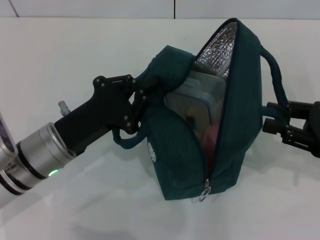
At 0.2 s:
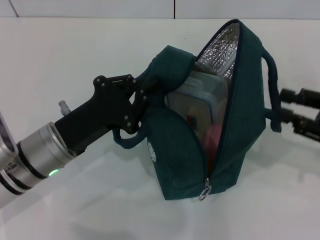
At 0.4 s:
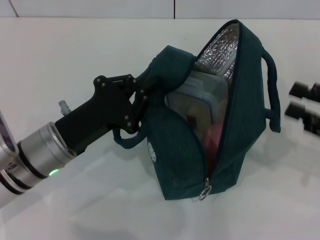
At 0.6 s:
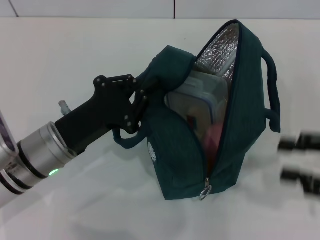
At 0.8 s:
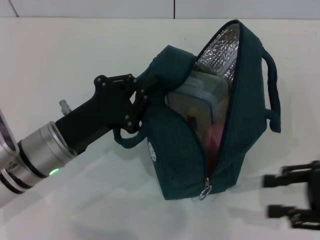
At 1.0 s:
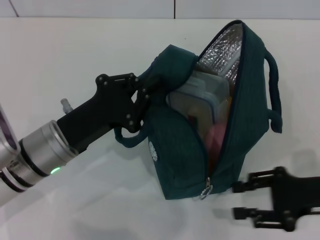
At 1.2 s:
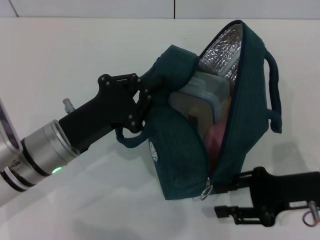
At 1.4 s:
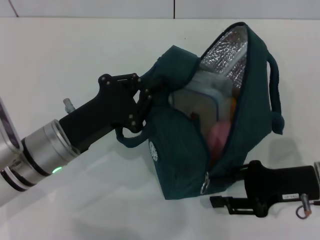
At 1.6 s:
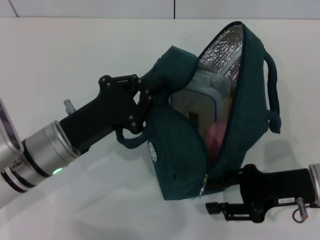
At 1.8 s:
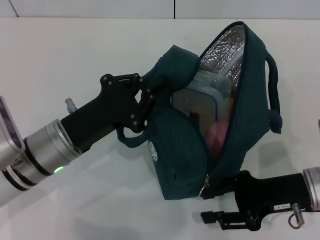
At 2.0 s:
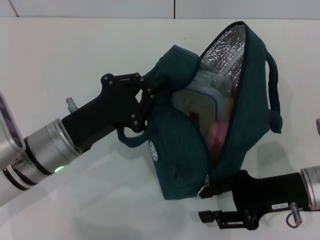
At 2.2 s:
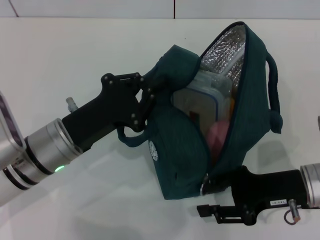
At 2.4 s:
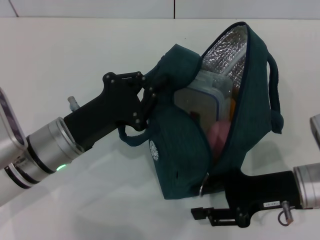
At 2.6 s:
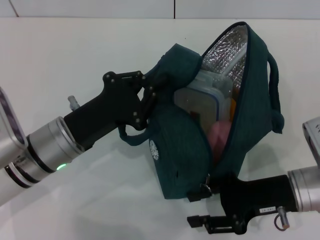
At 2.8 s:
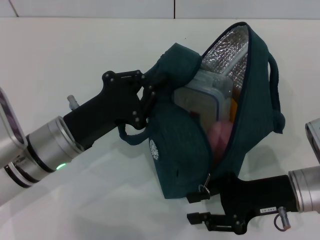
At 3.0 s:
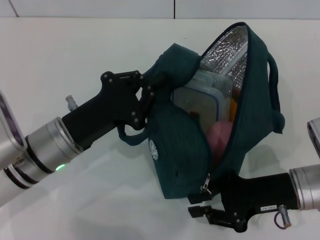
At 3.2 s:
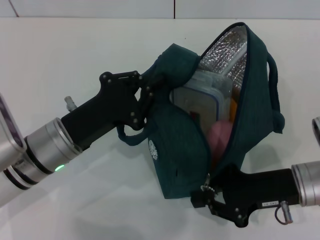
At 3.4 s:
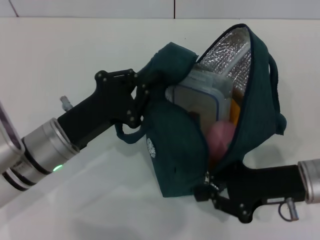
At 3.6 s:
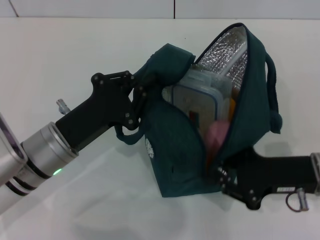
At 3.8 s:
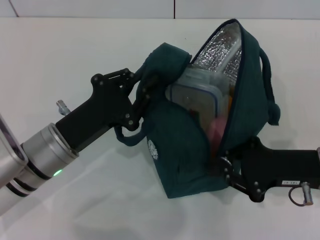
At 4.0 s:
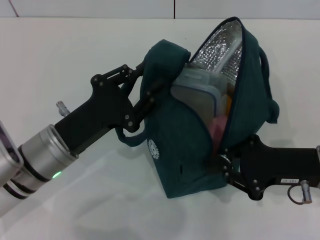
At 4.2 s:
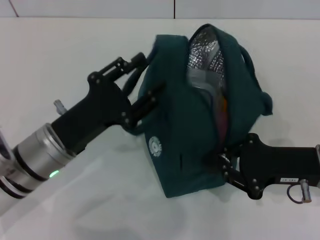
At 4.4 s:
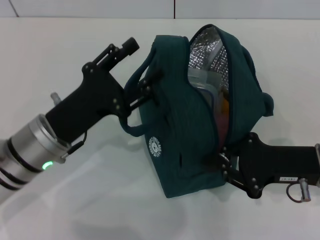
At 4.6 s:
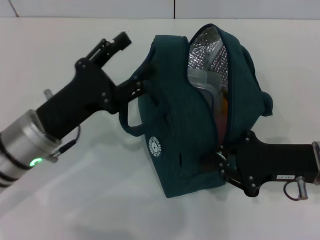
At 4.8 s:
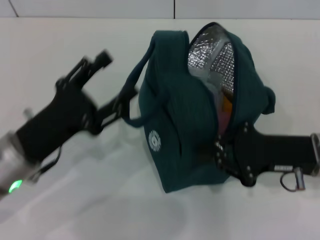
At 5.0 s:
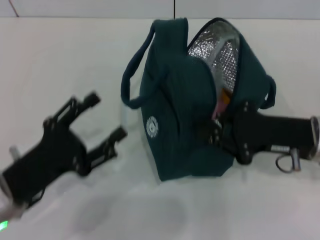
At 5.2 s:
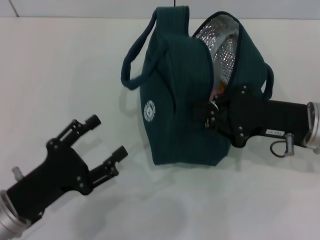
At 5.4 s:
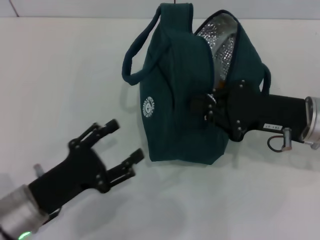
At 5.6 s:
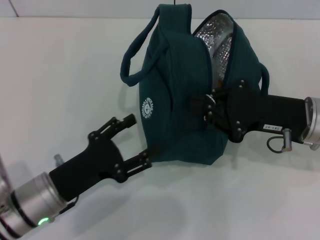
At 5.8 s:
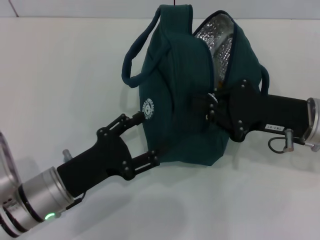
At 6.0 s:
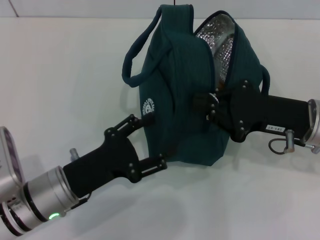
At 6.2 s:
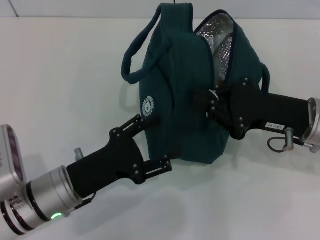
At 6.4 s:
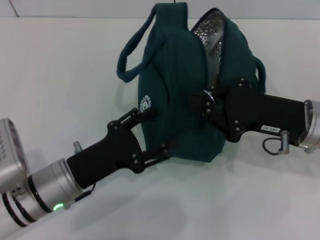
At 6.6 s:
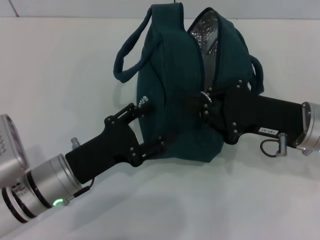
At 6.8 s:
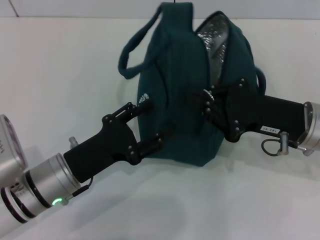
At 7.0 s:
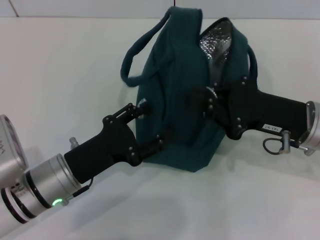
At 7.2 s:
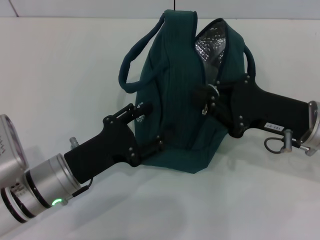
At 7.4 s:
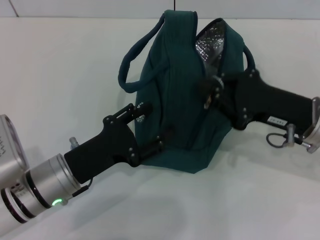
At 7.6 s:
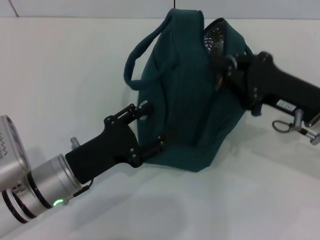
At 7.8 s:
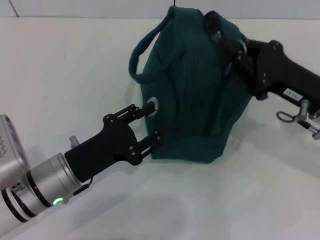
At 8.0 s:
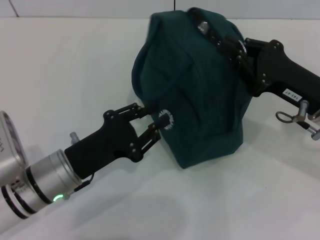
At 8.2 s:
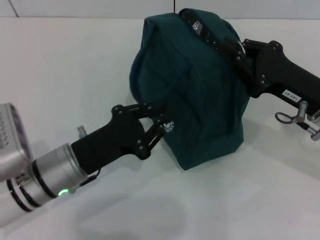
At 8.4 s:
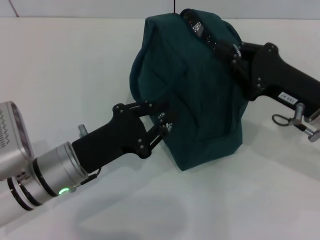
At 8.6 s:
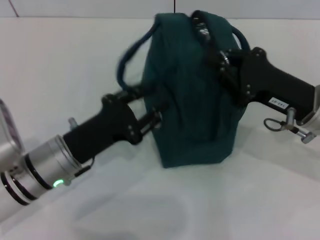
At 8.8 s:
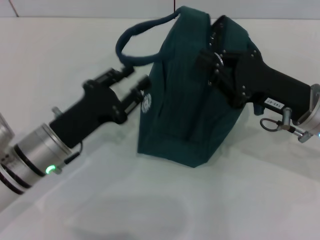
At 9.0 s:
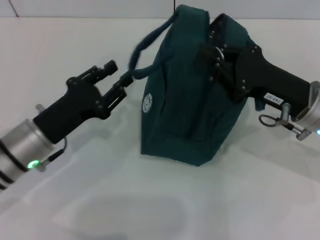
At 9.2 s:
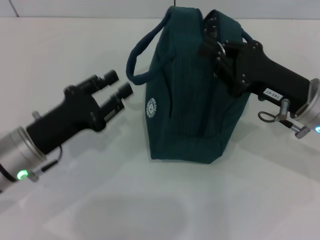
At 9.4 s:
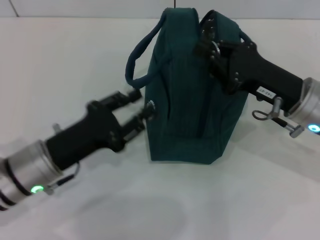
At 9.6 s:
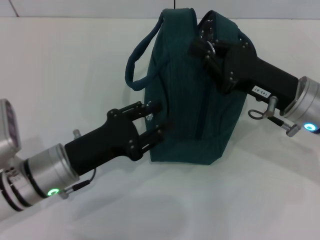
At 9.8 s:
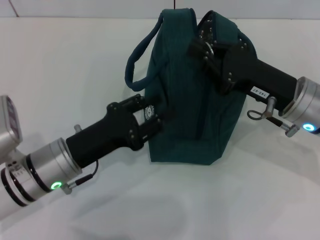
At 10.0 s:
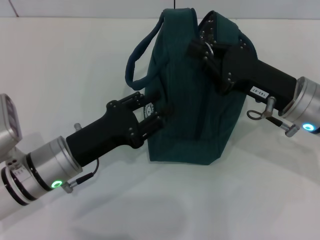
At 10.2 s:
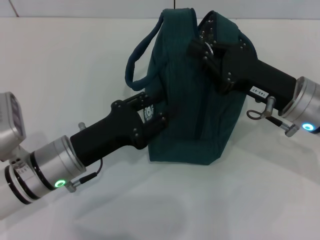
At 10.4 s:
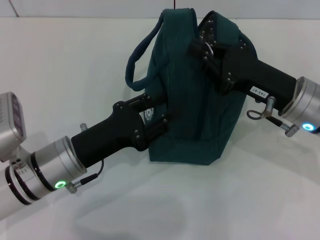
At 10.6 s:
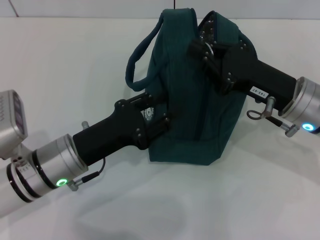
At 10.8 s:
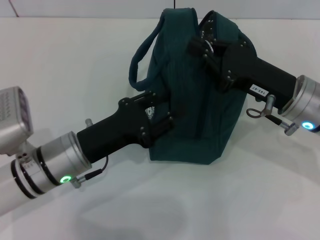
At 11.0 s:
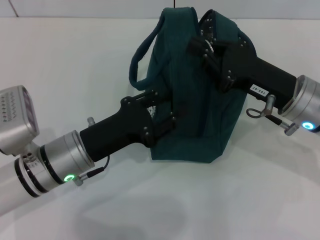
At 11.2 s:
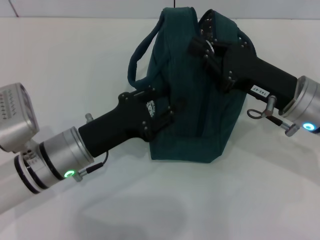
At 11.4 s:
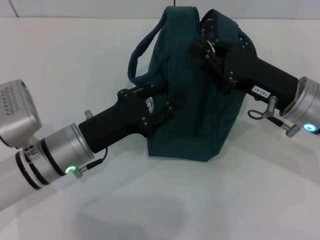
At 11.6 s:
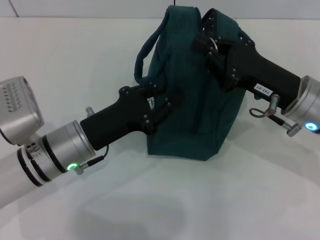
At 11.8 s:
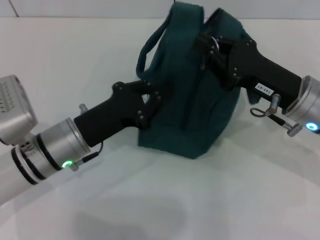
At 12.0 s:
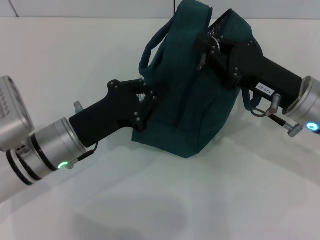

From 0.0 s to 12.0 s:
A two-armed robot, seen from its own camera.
From 0.0 s to 1.6 s: The right gripper is displaced to the left and downward by about 10 cm.
From 1.6 s to 3.0 s: The grippers make only small movements.
From 3.0 s to 4.4 s: The right gripper closes up. Meanwhile the left gripper opens.
From 7.6 s to 9.0 s: The left gripper changes place by about 5 cm.
From 10.4 s to 12.0 s: The left gripper closes its fingers.

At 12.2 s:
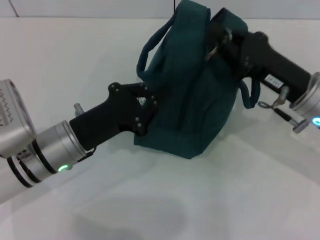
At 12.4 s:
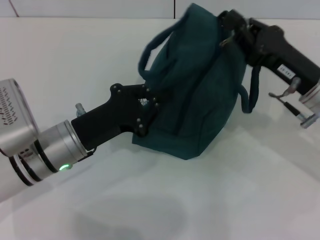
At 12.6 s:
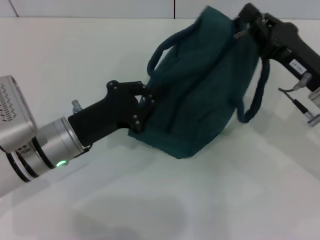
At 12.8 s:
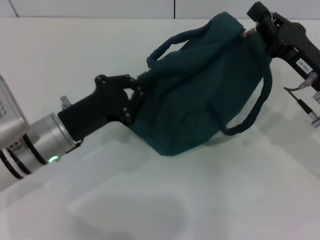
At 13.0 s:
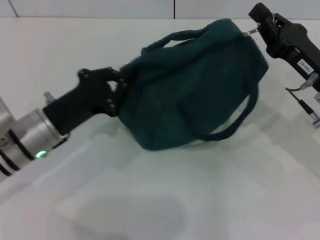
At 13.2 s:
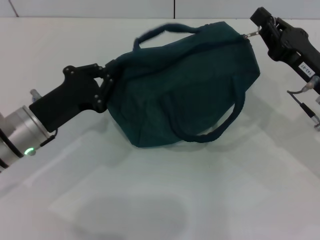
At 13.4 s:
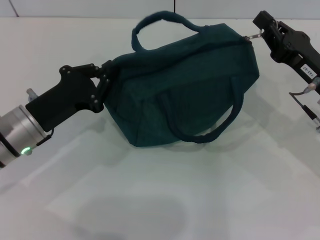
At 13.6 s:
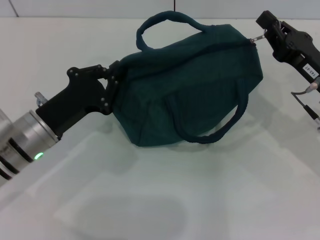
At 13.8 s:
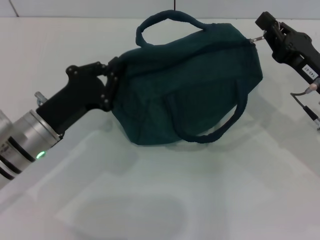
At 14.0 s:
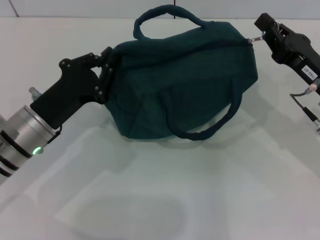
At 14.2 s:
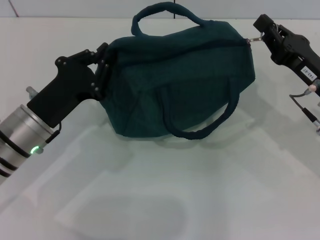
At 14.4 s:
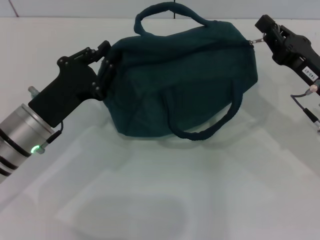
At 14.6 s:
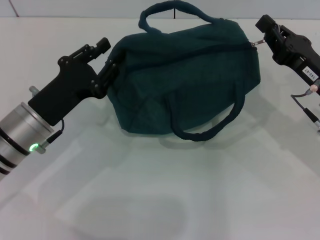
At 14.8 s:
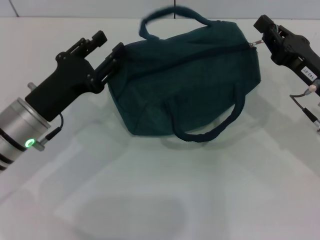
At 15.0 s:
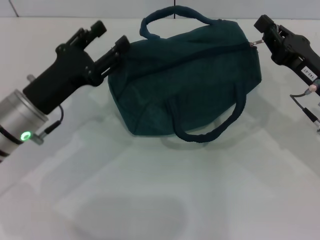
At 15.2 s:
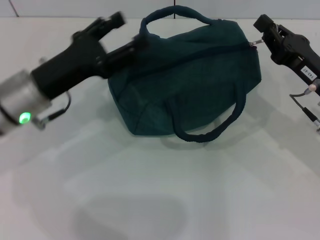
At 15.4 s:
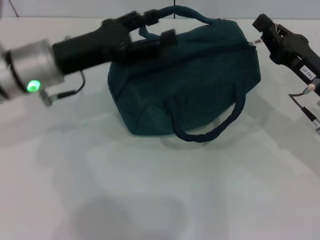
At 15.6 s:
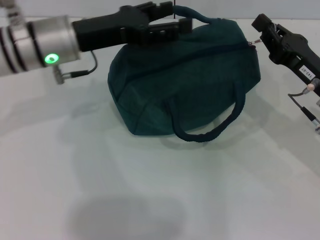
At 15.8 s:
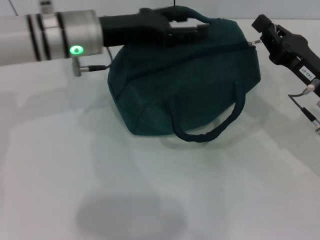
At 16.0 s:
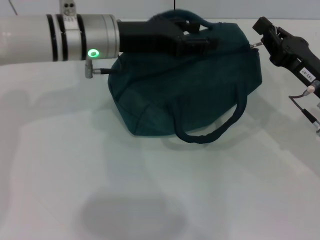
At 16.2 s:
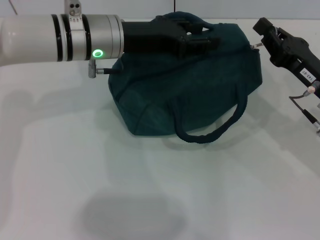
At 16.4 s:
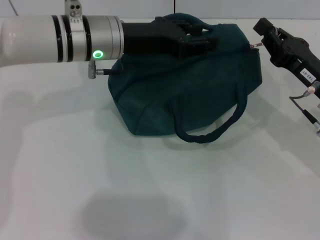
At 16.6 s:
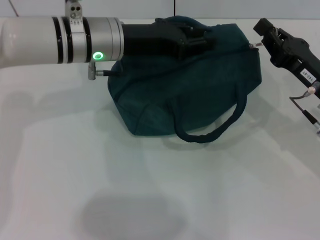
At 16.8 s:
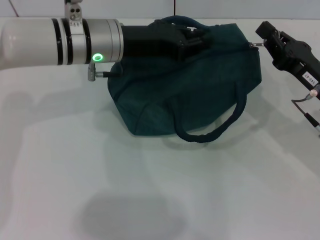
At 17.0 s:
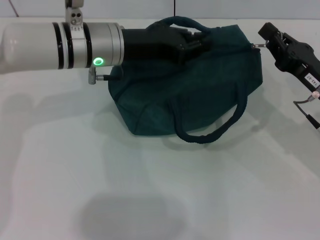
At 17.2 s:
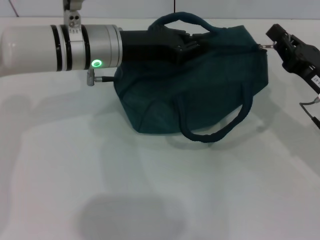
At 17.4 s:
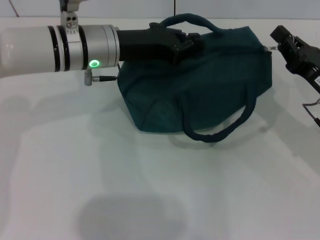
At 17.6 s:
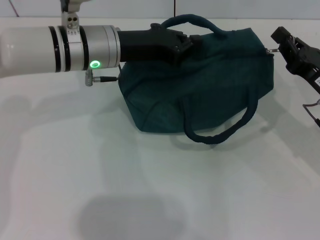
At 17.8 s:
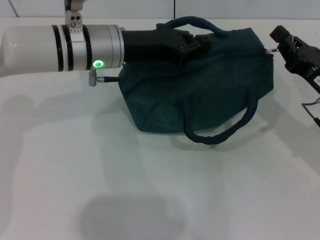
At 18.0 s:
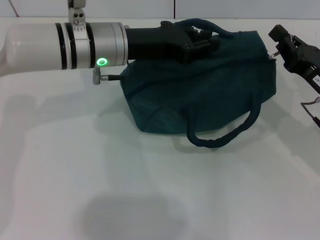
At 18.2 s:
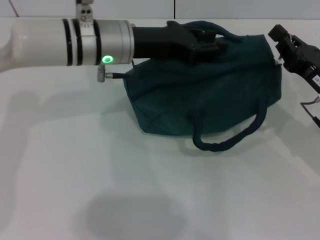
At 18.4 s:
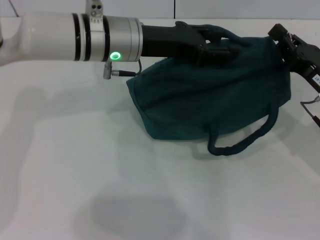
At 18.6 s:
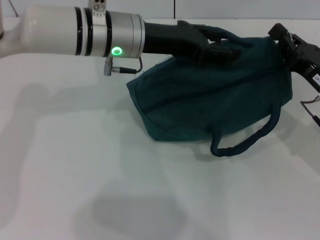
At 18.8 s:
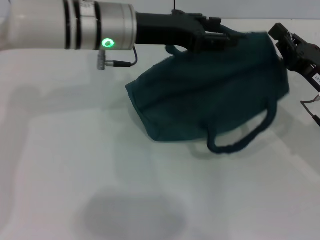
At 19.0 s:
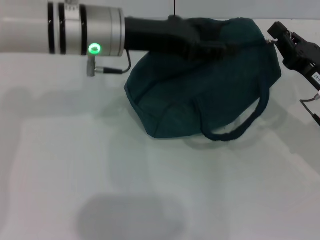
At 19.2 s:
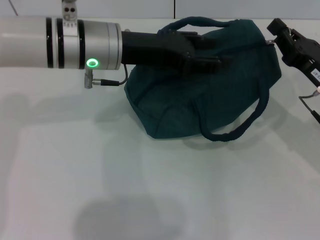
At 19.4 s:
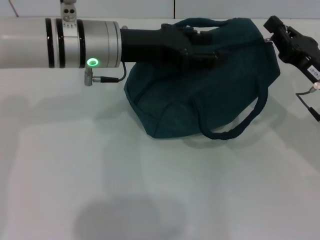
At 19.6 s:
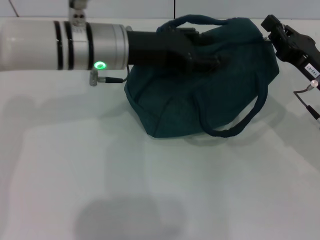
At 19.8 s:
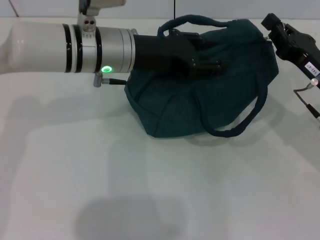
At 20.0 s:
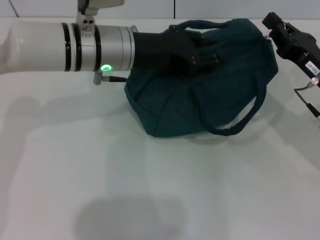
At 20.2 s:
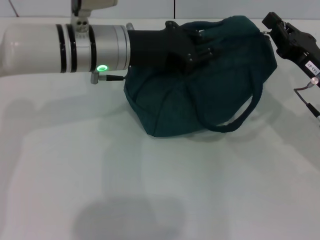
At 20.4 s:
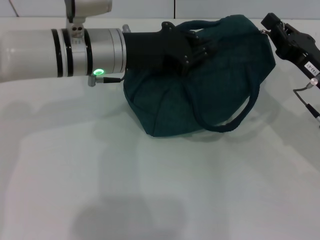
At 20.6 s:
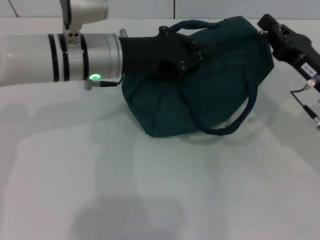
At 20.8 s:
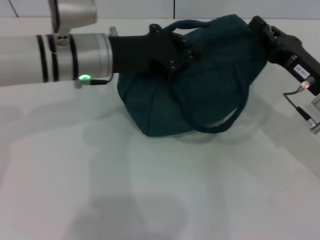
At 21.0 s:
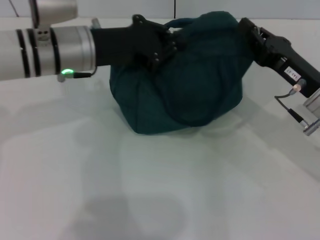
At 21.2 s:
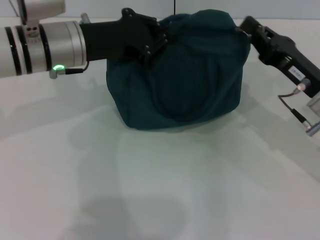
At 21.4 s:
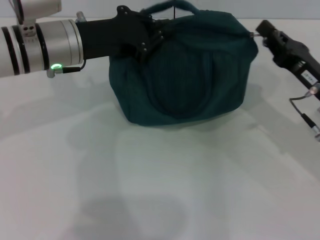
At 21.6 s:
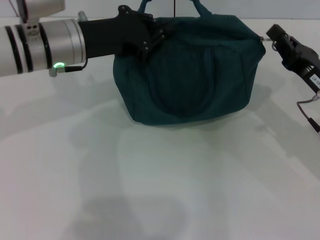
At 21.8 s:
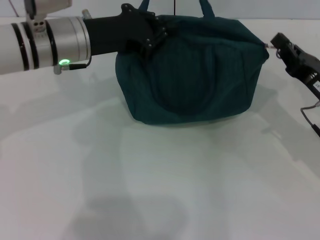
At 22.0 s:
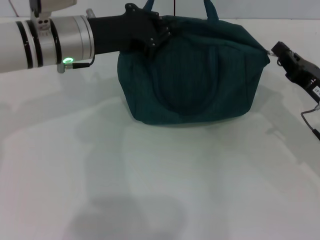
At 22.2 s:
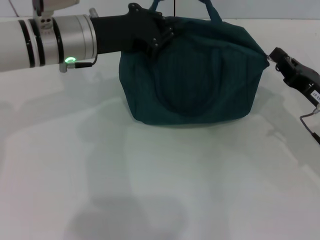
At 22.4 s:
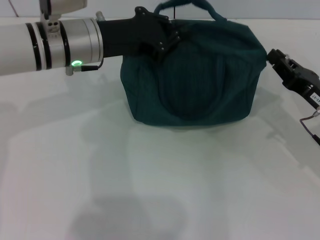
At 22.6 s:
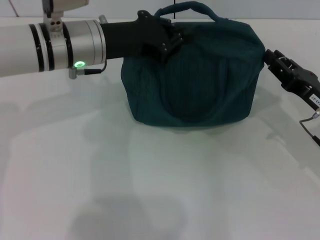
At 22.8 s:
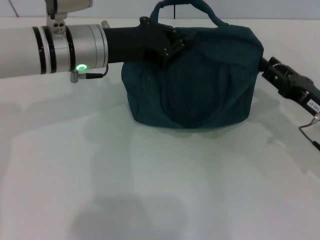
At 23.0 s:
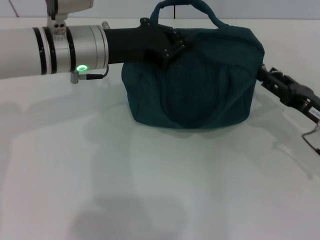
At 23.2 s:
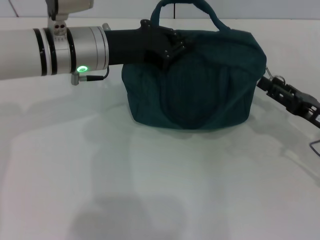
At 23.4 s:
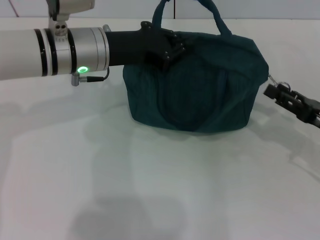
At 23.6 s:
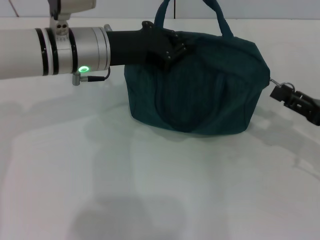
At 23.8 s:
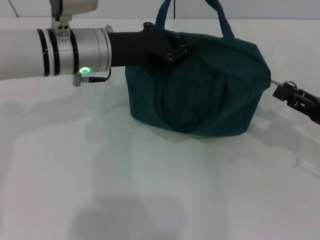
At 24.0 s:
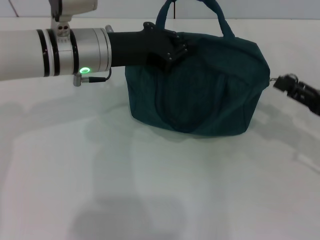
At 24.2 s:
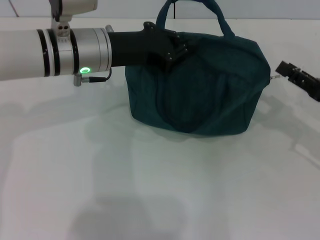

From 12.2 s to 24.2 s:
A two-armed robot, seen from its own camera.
From 13.8 s to 15.2 s: The left gripper is displaced upward by about 5 cm, and opens.
From 15.2 s to 16.6 s: The left gripper travels to the right and forward by about 10 cm, and closes up.
From 16.6 s to 18.2 s: The grippers make only small movements.
From 18.2 s to 19.8 s: The left gripper opens up.
From 19.8 s to 21.2 s: The left gripper shifts roughly 5 cm to the left, and closes.
From 21.2 s to 22.6 s: The right gripper changes place by roughly 5 cm.
From 22.6 s to 24.2 s: The right gripper opens its fingers.
